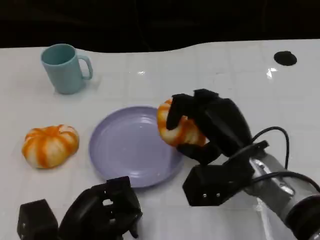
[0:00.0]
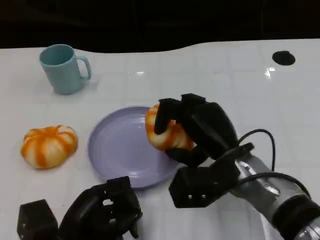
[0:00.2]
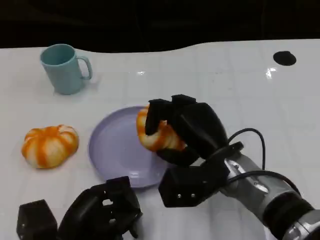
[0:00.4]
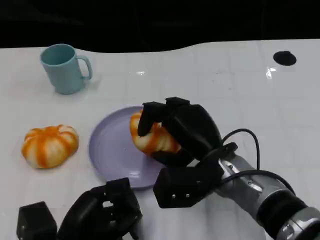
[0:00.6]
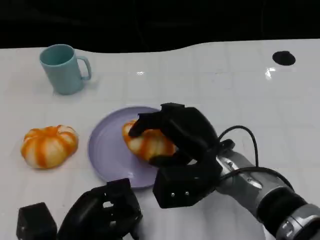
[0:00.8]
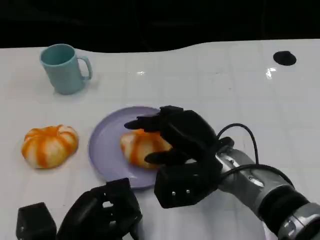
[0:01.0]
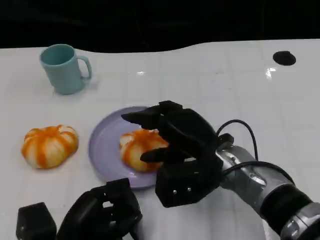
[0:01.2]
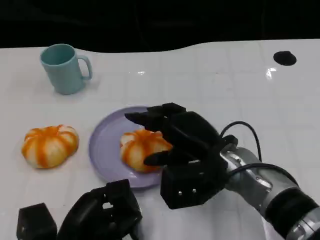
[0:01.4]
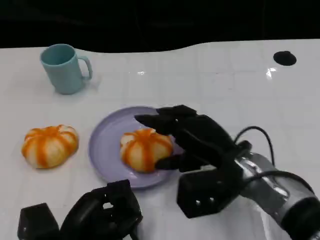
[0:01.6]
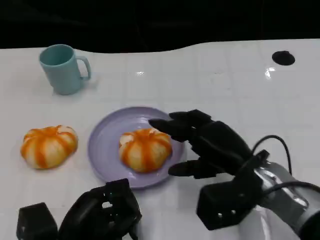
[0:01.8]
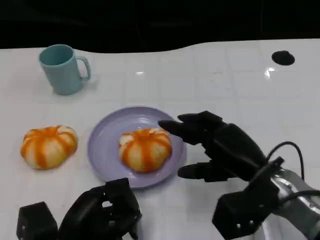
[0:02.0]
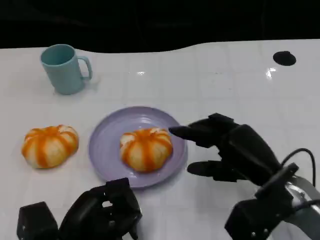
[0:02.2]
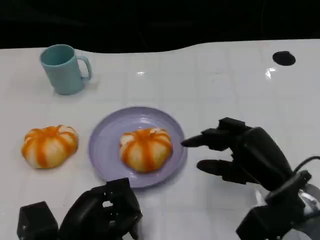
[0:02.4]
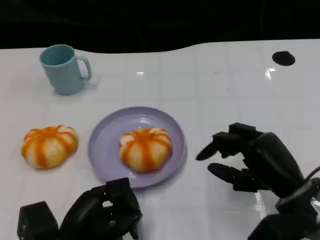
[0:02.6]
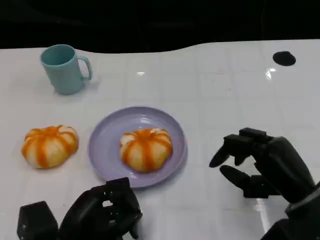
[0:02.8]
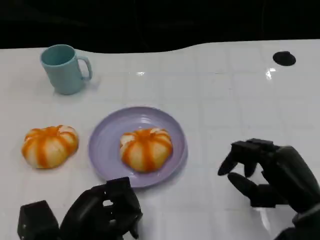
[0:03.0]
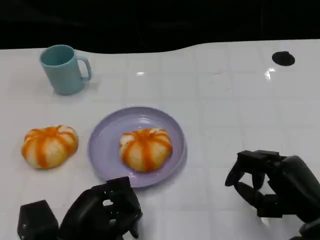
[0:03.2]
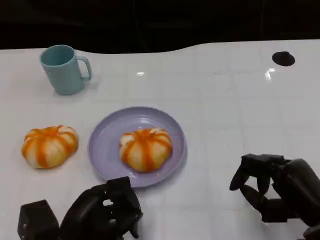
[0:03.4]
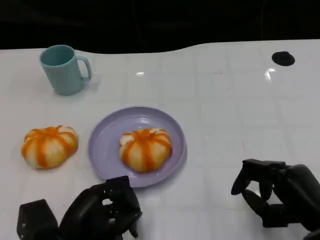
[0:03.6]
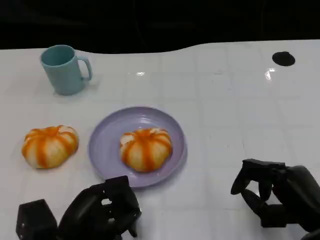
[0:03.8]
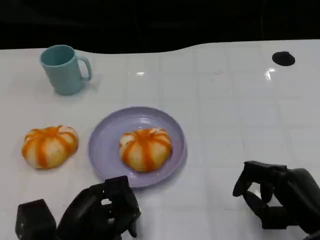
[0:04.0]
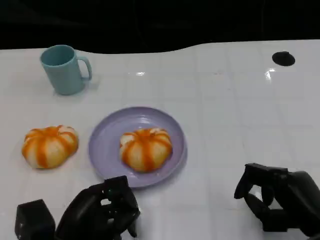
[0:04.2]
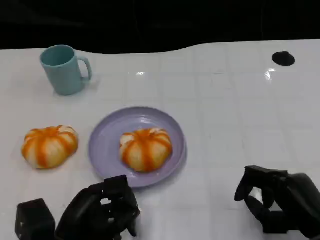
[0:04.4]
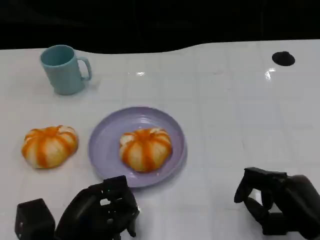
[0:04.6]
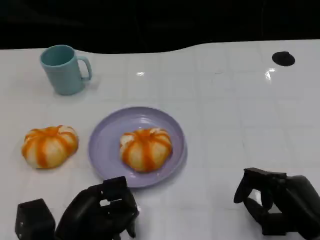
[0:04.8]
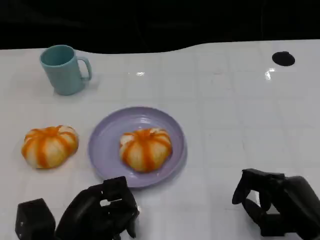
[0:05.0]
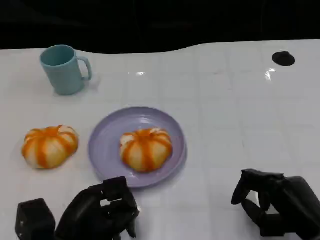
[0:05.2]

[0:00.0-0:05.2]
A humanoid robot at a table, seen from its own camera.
Task of the whole recording: Grasp the bread from the table and place it into the plate.
0:01.8 to 0:03.4: The right hand moves to the right and backward, roughly 10 cm.
0:03.4 to 0:05.2: The hands move only a little.

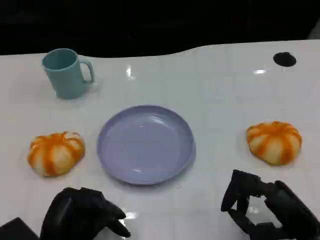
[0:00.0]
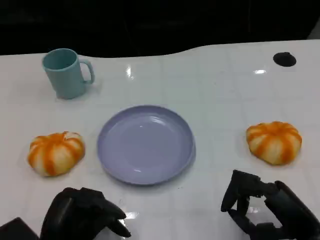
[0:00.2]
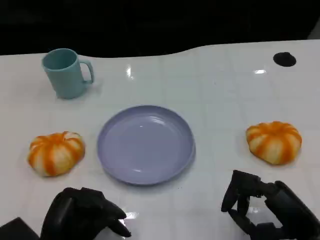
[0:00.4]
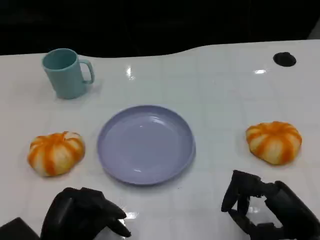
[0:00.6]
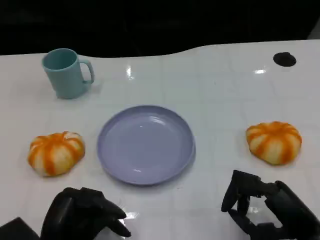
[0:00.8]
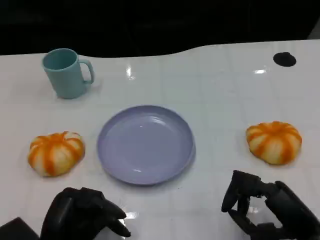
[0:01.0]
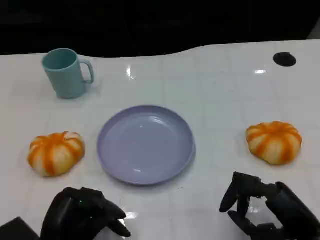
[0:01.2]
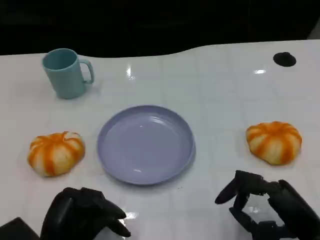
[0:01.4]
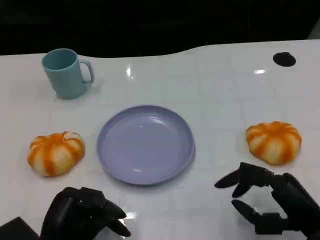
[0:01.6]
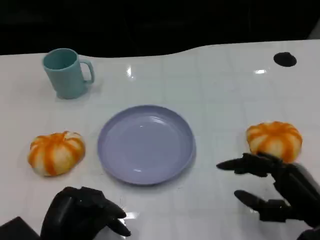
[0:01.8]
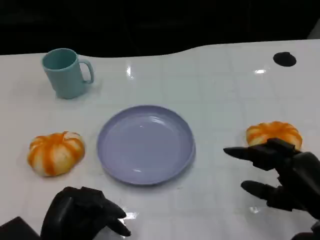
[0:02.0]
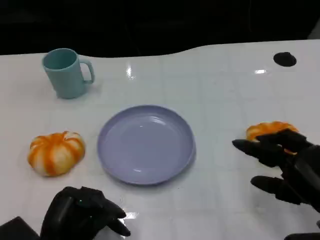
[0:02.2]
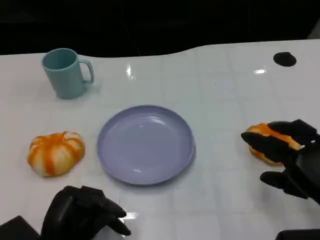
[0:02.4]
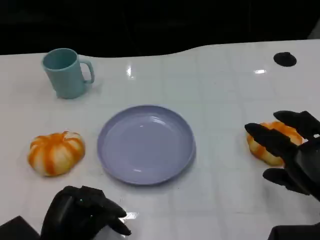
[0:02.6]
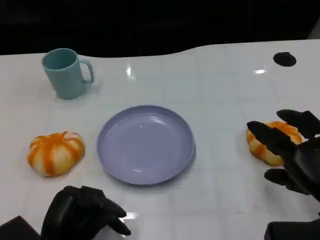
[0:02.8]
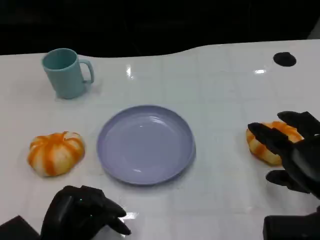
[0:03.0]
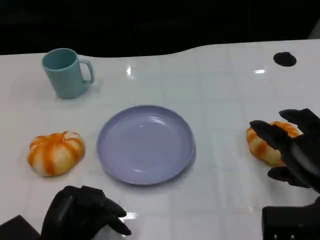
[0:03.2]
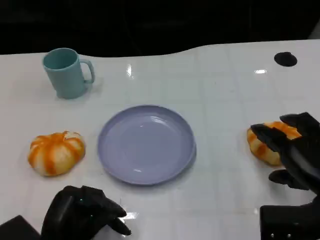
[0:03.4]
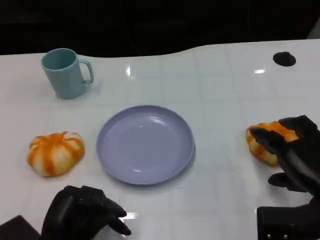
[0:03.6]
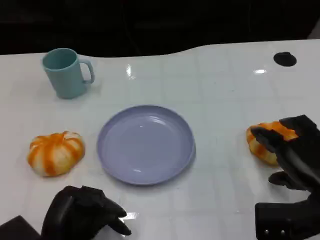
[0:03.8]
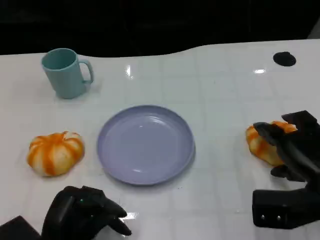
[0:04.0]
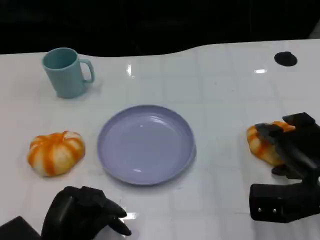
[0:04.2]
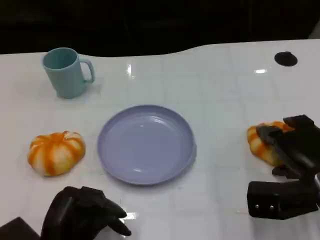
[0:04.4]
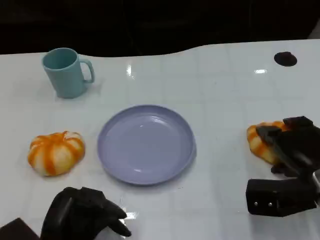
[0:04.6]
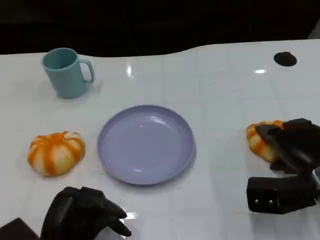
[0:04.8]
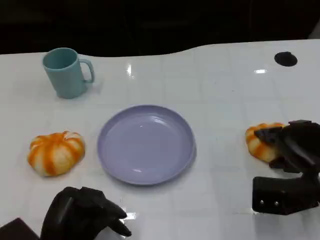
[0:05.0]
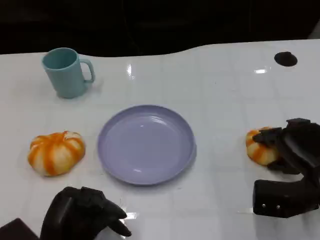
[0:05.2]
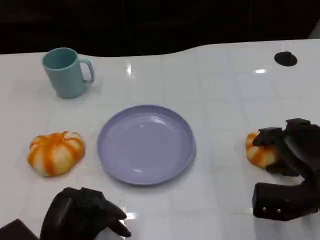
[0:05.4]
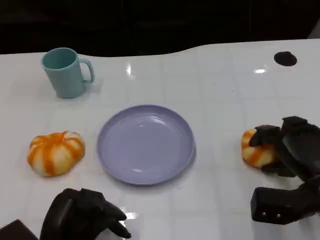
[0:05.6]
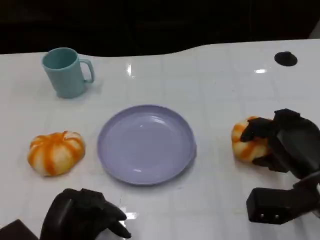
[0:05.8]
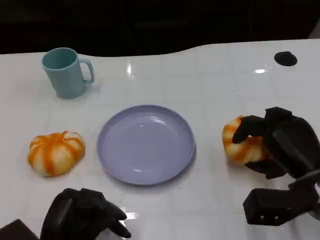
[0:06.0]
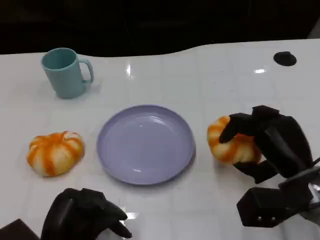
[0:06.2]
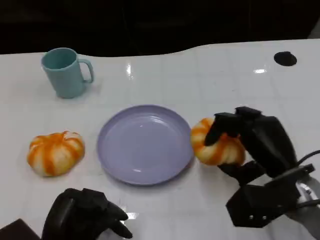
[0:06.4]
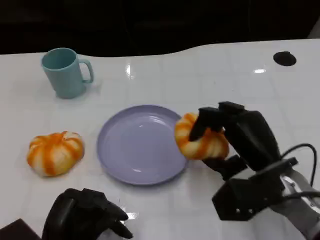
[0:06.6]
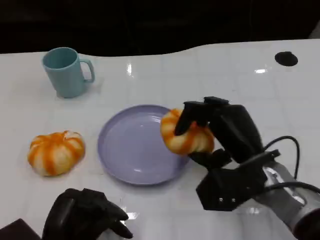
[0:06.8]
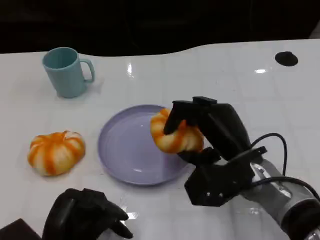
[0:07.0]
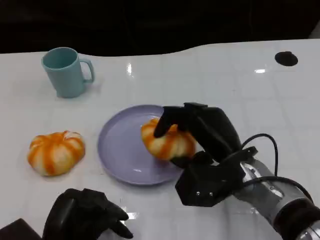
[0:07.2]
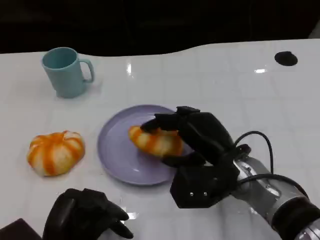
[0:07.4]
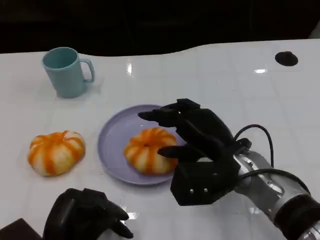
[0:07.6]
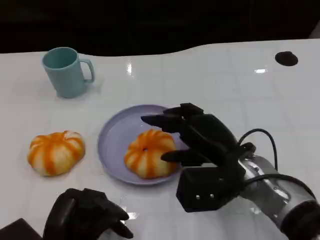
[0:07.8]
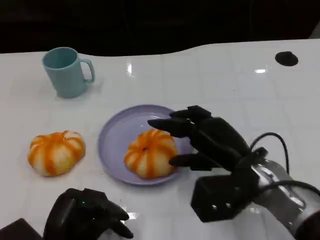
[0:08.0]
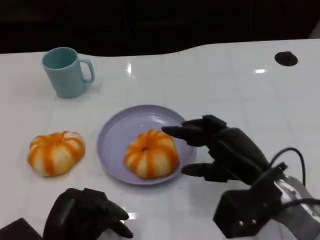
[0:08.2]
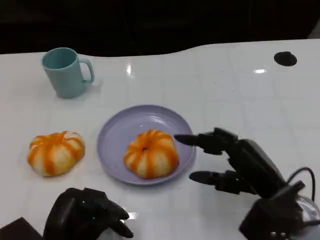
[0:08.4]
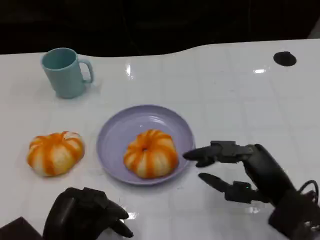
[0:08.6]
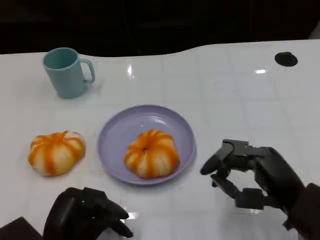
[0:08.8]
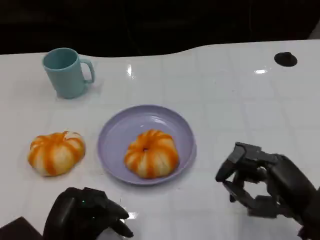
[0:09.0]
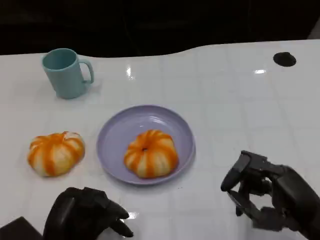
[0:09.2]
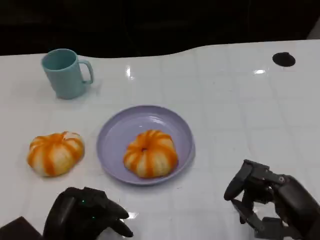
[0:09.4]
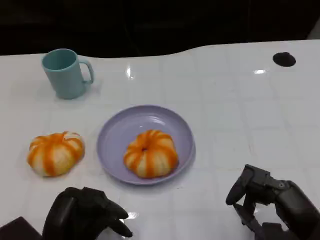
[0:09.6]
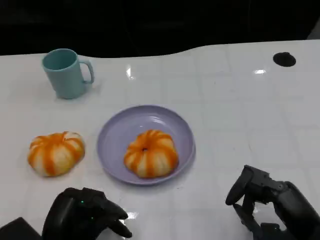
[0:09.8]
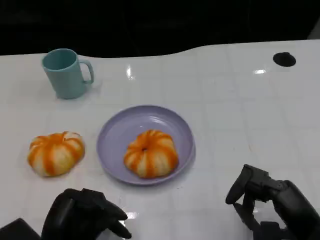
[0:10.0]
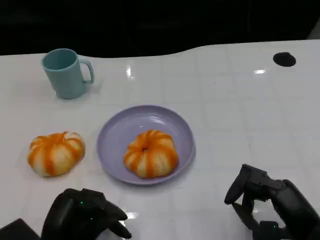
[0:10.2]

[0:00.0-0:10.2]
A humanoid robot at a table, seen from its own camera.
Task of the whole recording: Grasp the bread from the table and place it into the plate.
0:00.0 to 0:01.4: The two hands keep their place.
0:01.4 to 0:03.0: The right hand moves roughly 5 cm.
0:03.0 to 0:04.4: The right hand is displaced forward by approximately 5 cm.
0:05.8 to 0:07.2: The right hand goes about 10 cm to the left.
0:07.2 to 0:08.8: The right hand travels to the right and backward by roughly 15 cm.
0:08.8 to 0:10.2: There are only small adjustments of the hands.

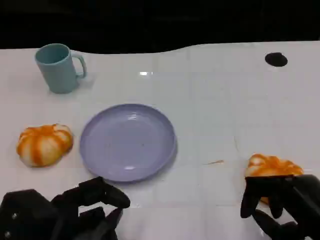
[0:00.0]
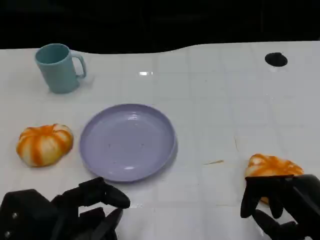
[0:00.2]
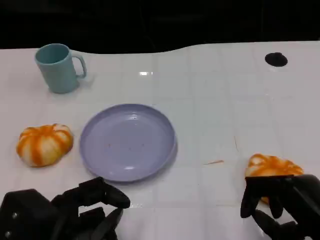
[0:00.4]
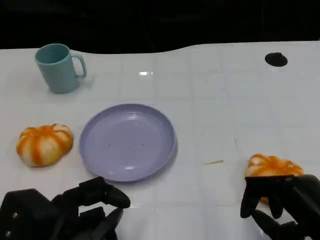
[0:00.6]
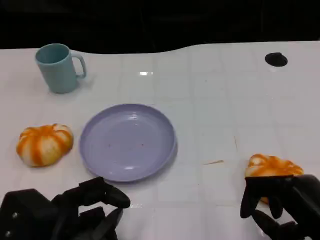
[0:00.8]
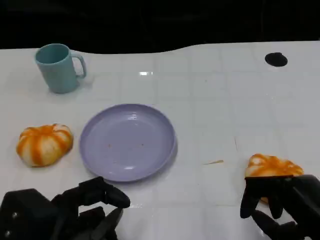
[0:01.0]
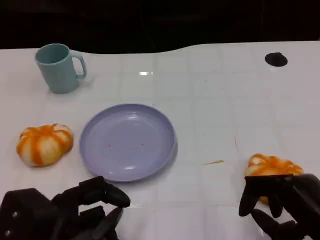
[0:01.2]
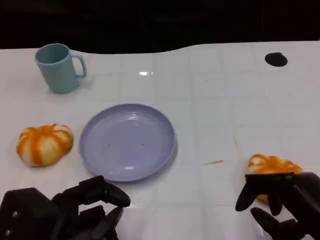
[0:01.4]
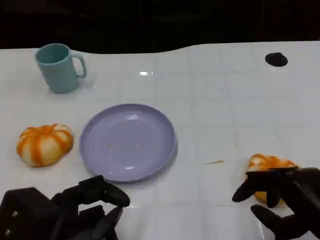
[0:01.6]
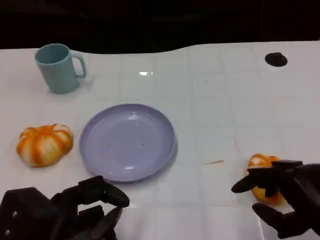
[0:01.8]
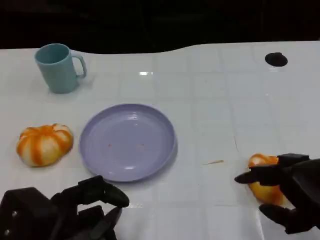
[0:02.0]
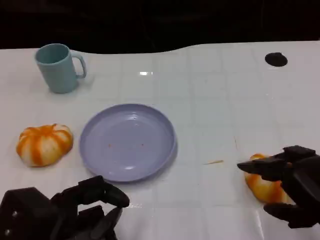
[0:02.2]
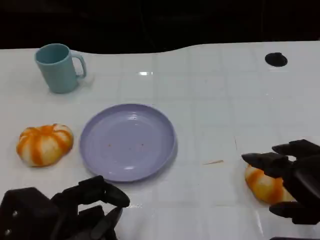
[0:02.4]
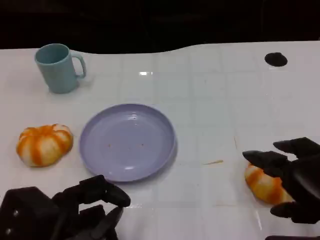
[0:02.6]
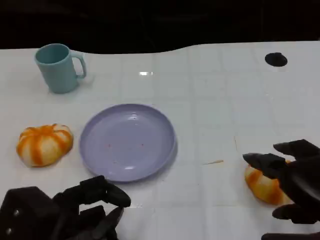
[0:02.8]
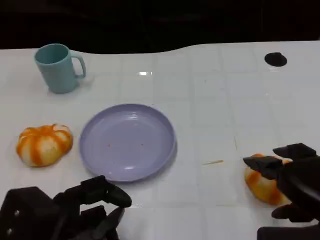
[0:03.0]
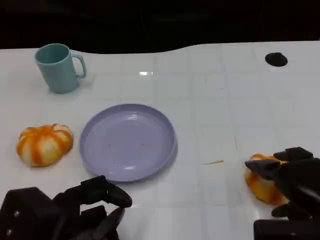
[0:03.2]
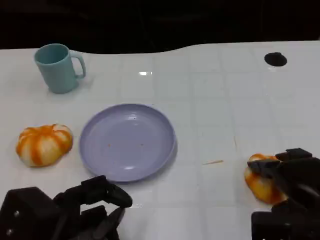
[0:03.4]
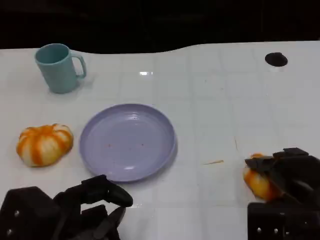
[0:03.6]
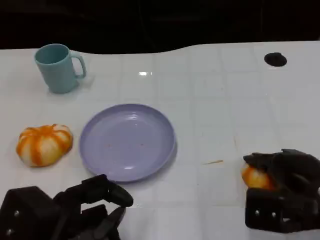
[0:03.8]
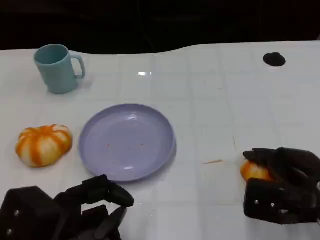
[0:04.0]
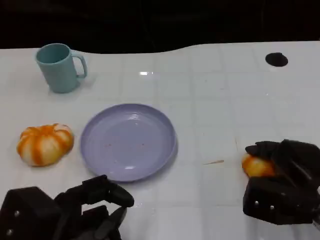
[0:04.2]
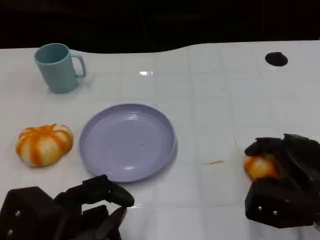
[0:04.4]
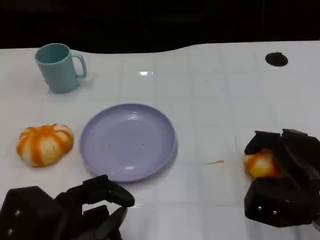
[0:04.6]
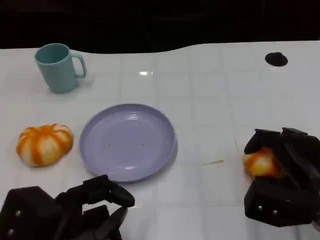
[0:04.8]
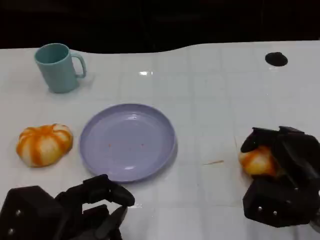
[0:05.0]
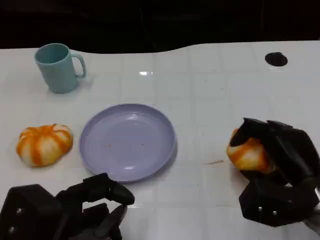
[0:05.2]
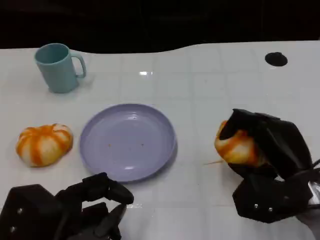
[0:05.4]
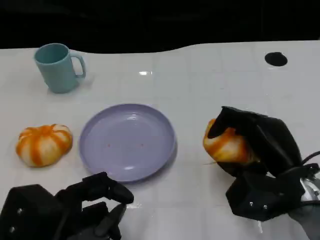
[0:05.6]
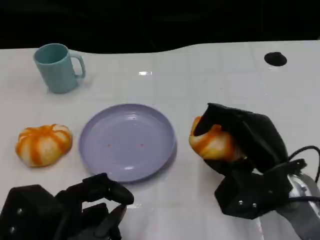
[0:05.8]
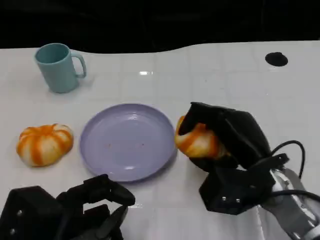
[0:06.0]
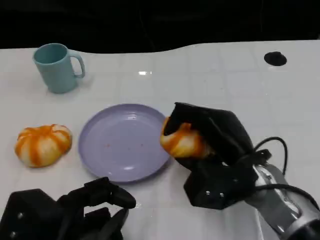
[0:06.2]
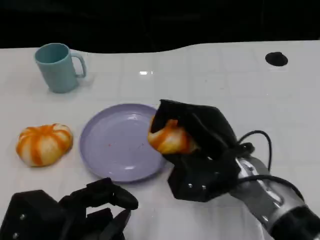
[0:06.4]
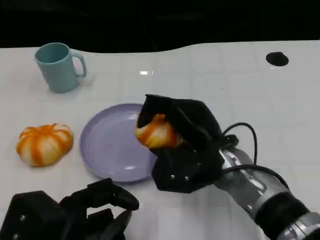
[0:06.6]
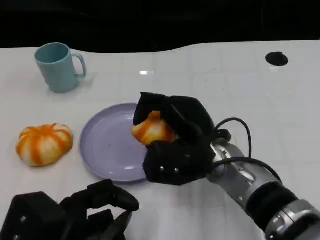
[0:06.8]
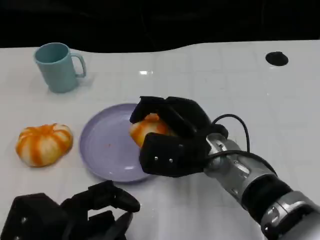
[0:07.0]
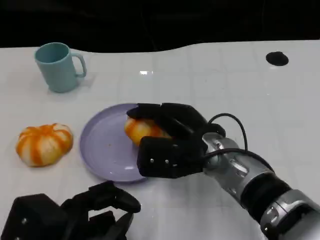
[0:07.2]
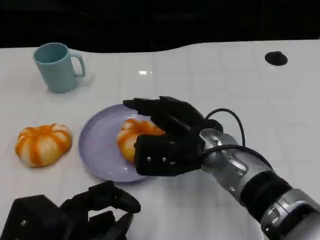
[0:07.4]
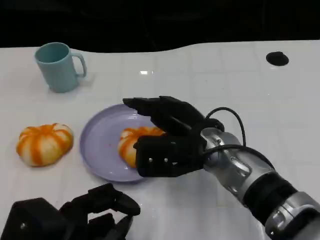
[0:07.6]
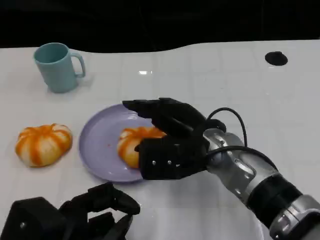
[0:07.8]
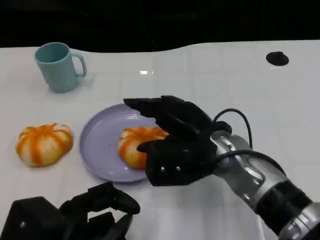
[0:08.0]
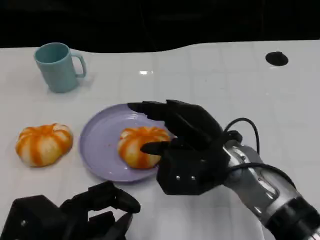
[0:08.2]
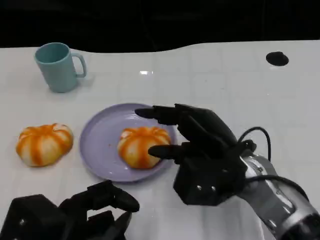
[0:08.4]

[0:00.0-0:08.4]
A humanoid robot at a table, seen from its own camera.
Task of the whole recording: Grasp the bread from the table and place it into the plate.
0:00.0 to 0:01.4: Neither hand changes place.
0:02.8 to 0:04.2: The right hand goes roughly 10 cm forward and downward.
0:04.2 to 0:05.6: The right hand shifts by approximately 5 cm.
0:05.6 to 0:07.0: The right hand goes approximately 10 cm to the left.
0:07.0 to 0:08.4: The right hand goes about 5 cm to the right.
